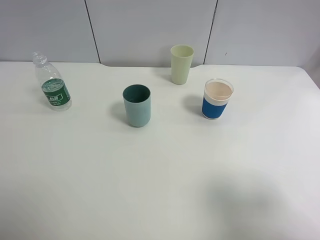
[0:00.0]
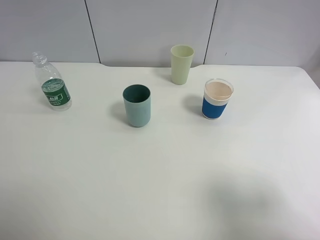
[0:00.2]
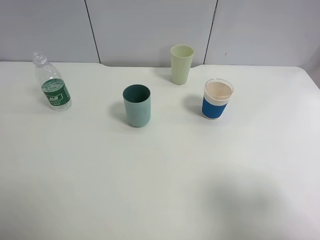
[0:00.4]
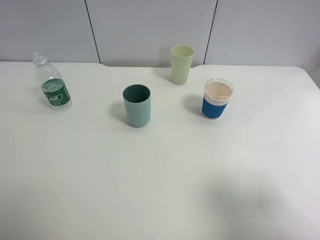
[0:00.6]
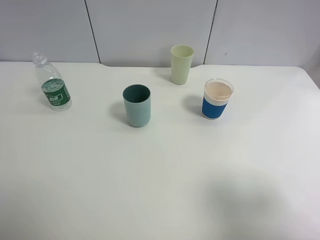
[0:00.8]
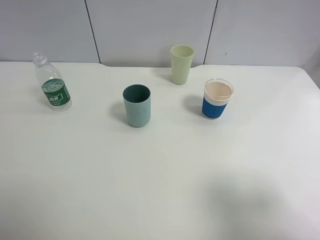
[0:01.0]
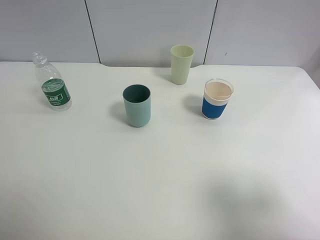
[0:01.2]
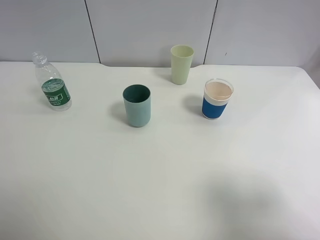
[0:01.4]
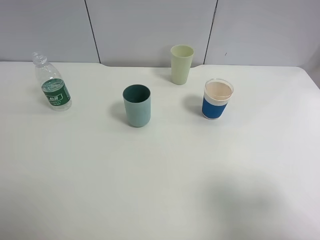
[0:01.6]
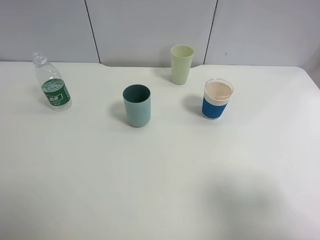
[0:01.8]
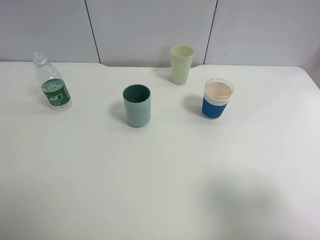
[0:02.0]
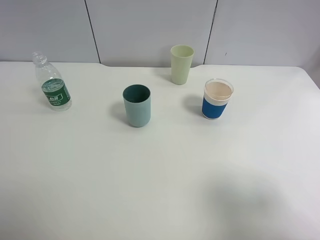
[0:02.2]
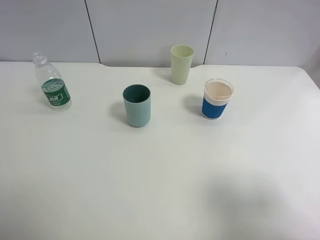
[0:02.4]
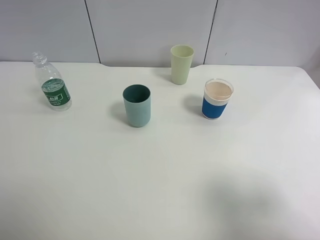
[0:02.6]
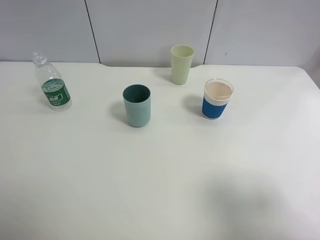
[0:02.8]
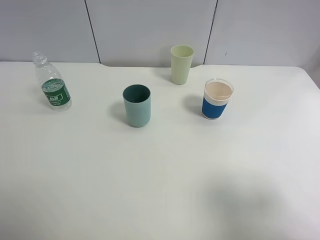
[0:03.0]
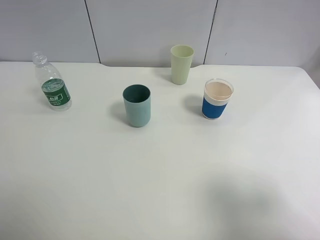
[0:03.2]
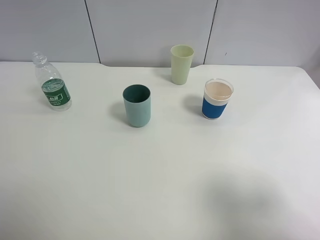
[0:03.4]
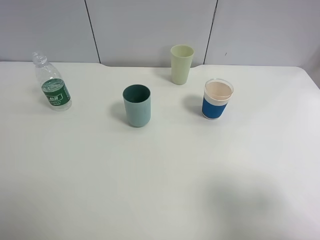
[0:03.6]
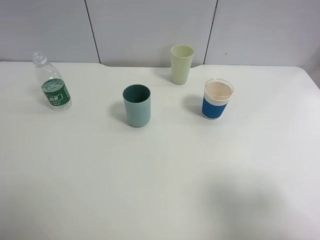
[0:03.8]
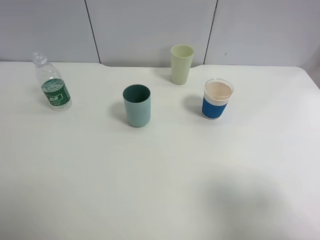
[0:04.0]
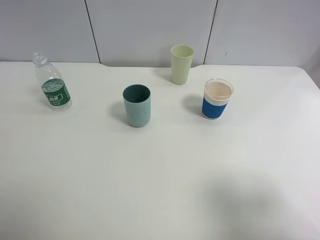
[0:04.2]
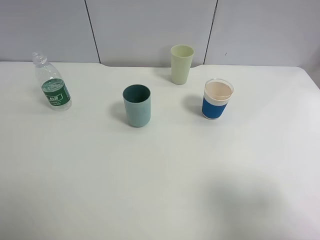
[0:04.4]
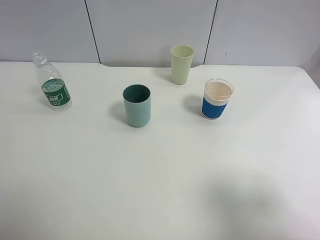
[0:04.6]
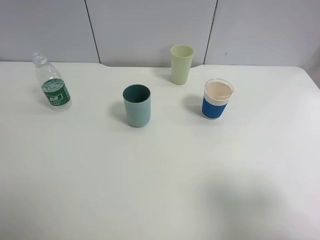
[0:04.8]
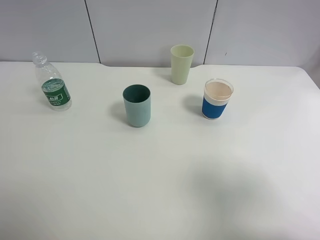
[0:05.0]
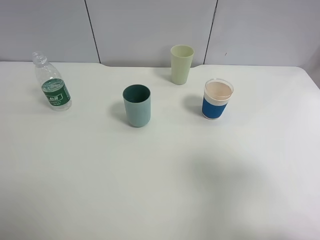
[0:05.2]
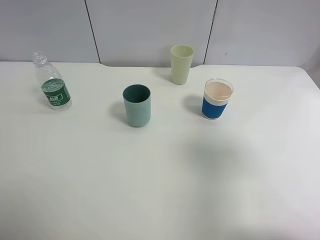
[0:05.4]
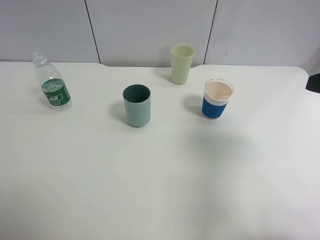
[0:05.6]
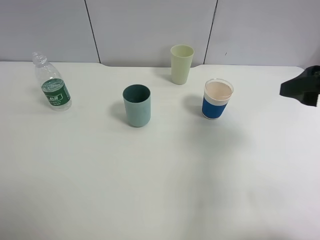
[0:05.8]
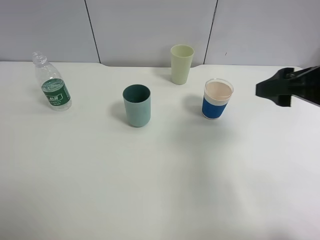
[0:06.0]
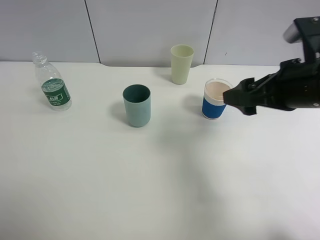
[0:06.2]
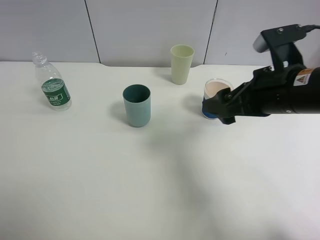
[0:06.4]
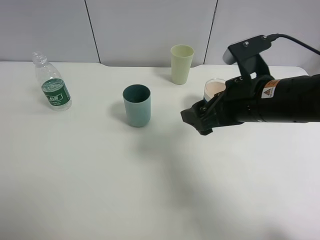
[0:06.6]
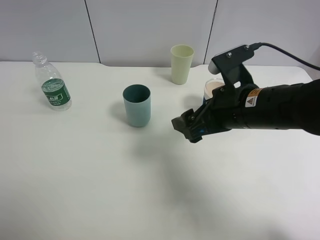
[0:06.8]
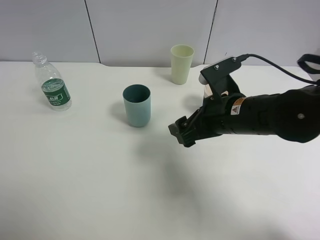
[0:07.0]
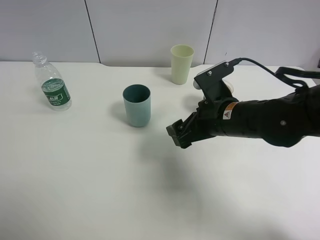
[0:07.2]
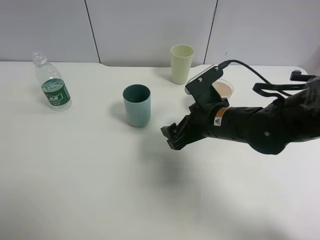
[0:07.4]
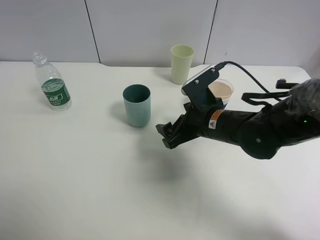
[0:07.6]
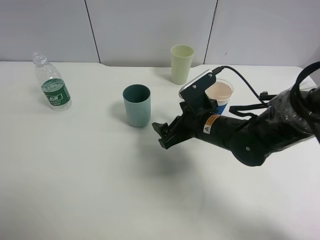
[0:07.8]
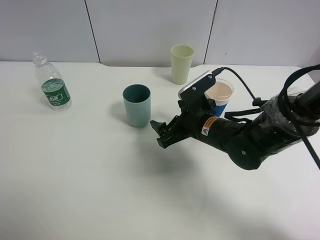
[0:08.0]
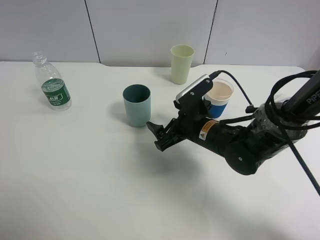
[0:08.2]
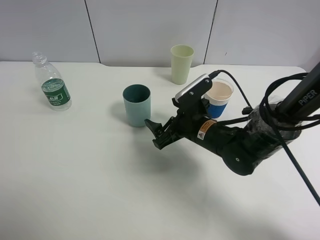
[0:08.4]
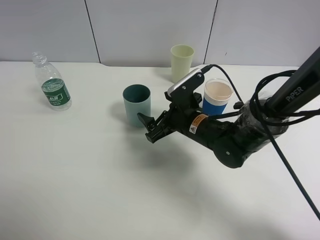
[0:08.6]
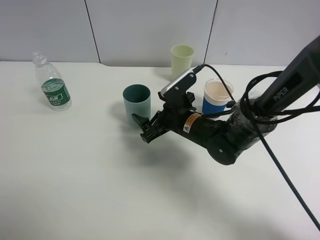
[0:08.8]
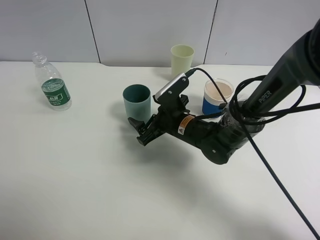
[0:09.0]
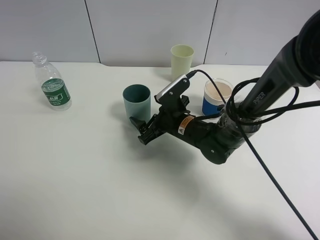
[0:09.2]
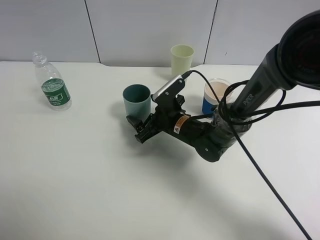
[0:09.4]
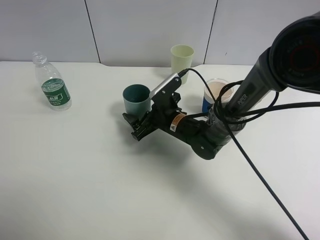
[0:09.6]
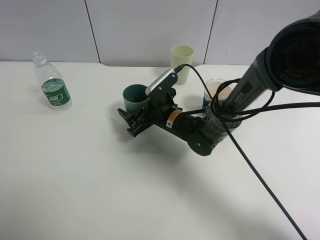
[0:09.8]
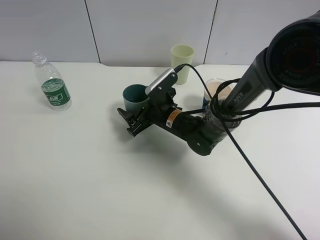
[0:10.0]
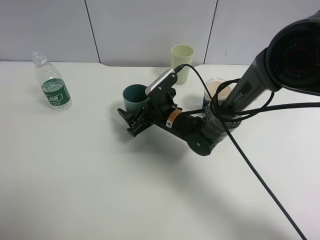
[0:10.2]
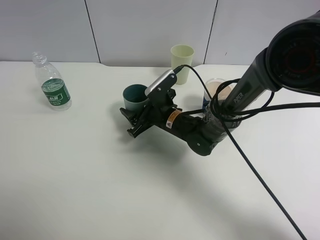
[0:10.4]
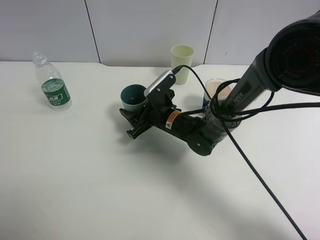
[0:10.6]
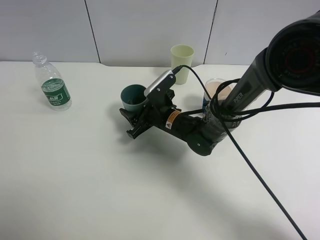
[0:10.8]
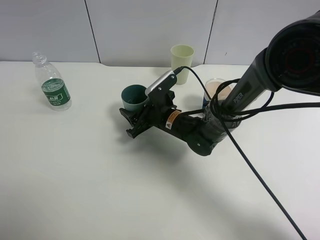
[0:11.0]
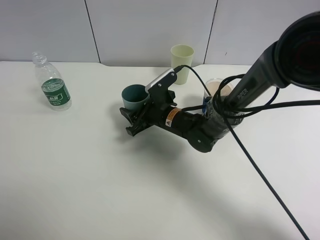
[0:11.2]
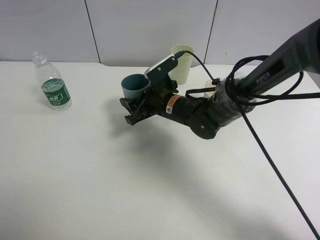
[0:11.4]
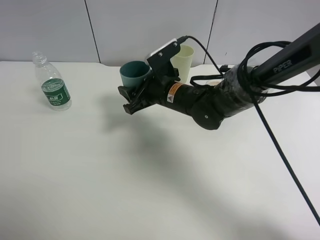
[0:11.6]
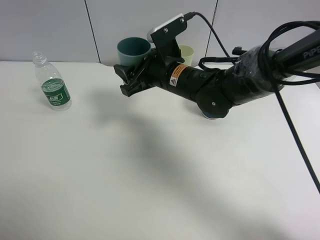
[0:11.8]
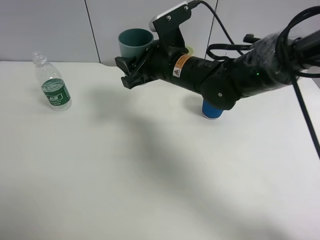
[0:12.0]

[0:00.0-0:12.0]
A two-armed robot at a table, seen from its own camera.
Task of the whole recording: use a clamp to hold the bottle of the drink, pour the beverage into a random cup, then clamp the cup containing the drink and pour the drink into another random cup.
Step, 0:00.0 to 0:11.2: Pick up the blue plastic cup bottle with right gripper.
0:01.6 to 0:04.4: Both grippers stay about where they are.
0:04.4 to 0:06.0: The right gripper moves forward, about 20 cm.
0:06.0 to 0:07.6: The right gripper heads to the left and downward, covering about 20 cm.
0:07.6 to 0:09.0: The right gripper travels downward by approximately 5 cm.
0:09.0 to 0:10.4: The right gripper closes.
0:10.4 to 0:12.0: The right gripper moves upward, approximately 15 cm.

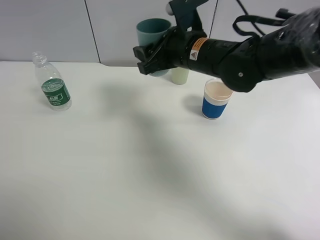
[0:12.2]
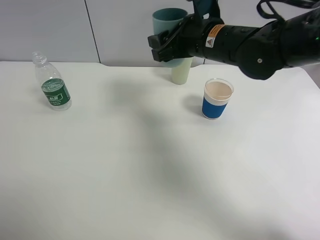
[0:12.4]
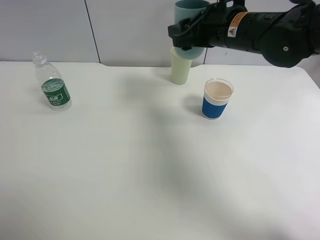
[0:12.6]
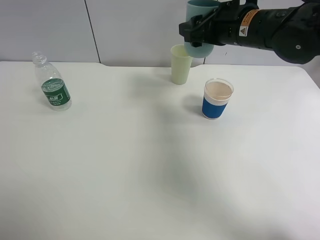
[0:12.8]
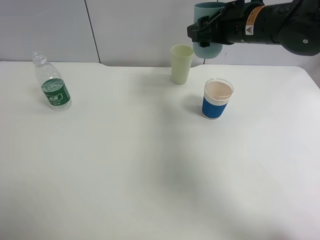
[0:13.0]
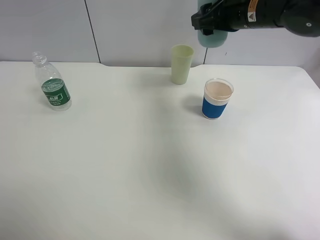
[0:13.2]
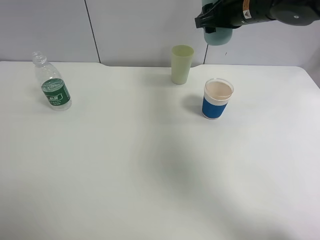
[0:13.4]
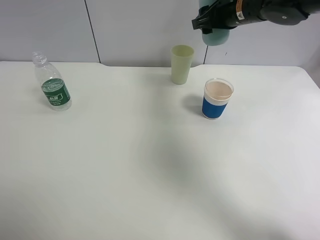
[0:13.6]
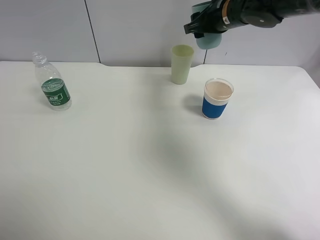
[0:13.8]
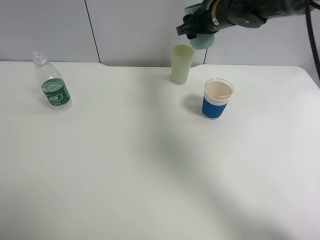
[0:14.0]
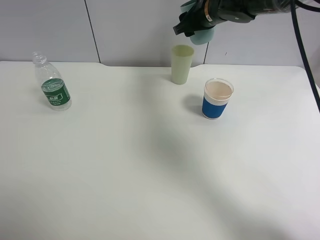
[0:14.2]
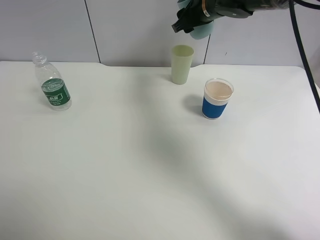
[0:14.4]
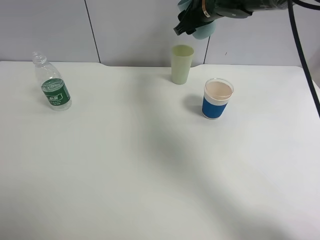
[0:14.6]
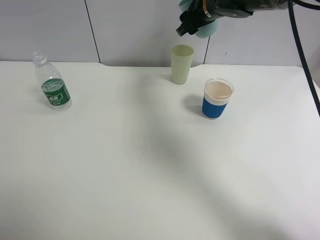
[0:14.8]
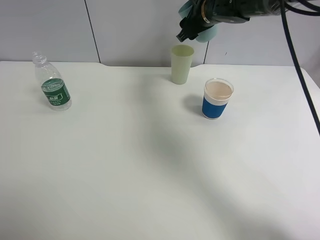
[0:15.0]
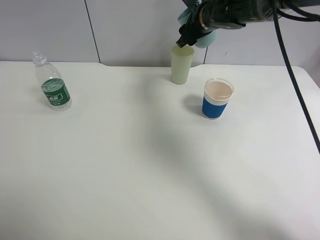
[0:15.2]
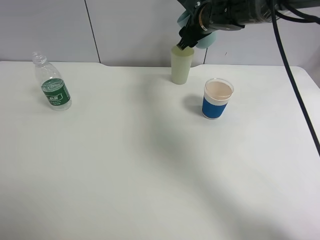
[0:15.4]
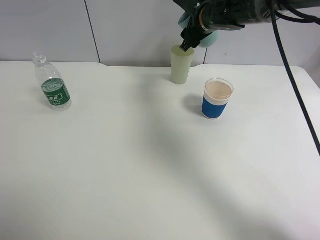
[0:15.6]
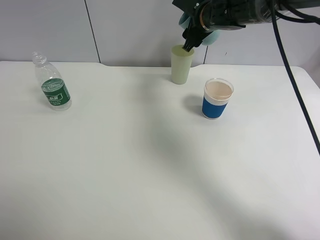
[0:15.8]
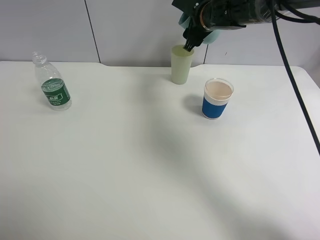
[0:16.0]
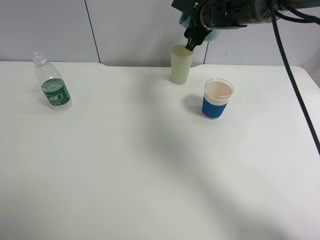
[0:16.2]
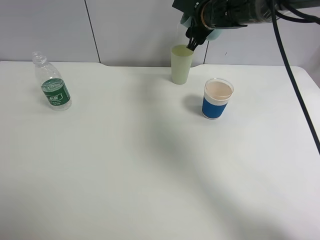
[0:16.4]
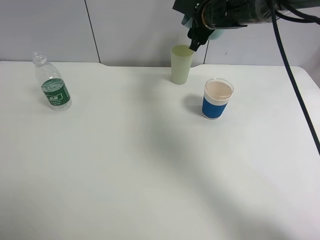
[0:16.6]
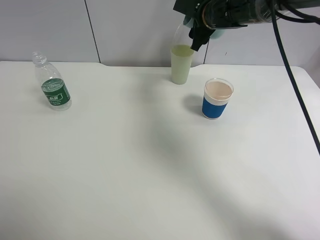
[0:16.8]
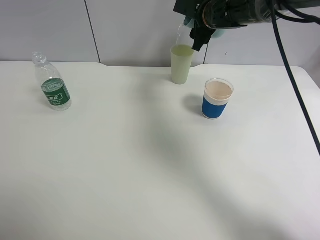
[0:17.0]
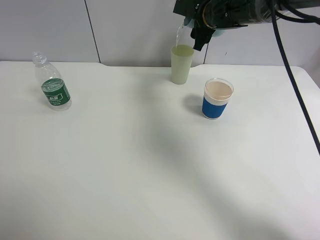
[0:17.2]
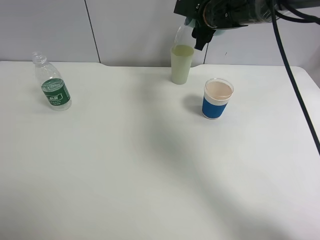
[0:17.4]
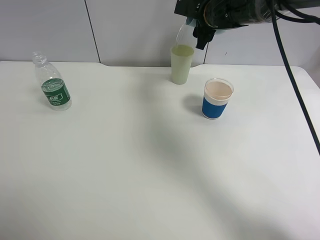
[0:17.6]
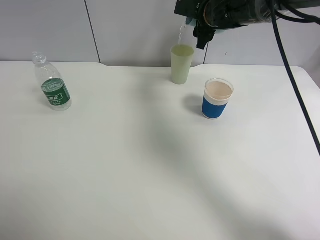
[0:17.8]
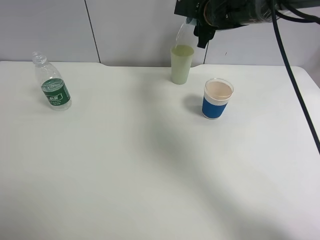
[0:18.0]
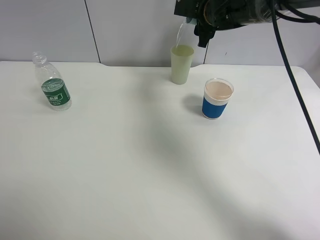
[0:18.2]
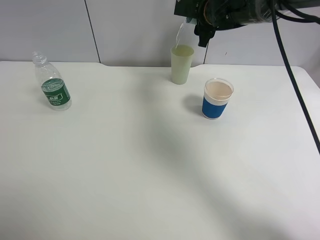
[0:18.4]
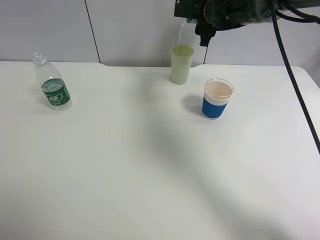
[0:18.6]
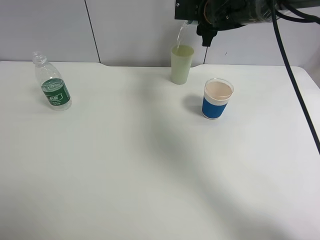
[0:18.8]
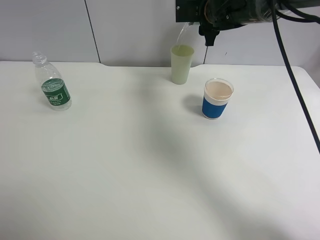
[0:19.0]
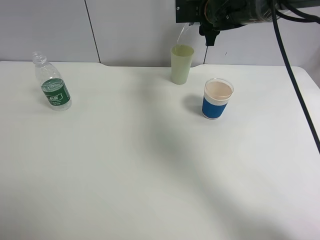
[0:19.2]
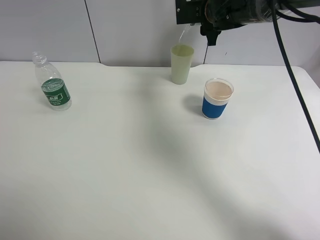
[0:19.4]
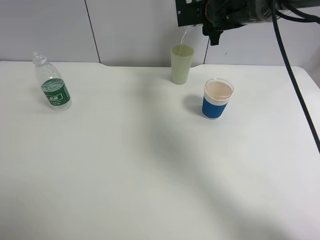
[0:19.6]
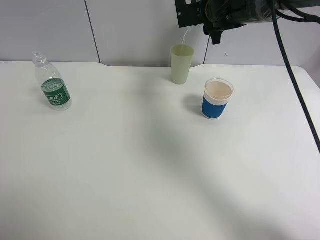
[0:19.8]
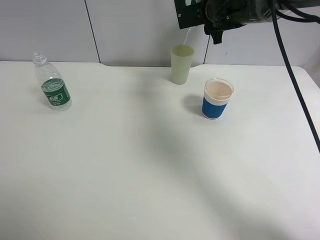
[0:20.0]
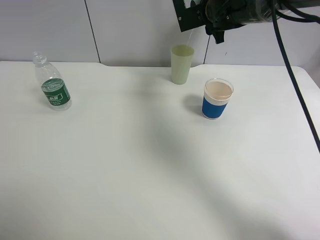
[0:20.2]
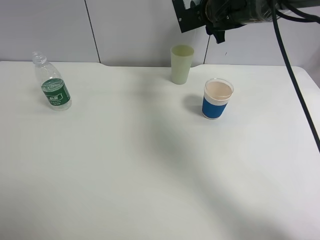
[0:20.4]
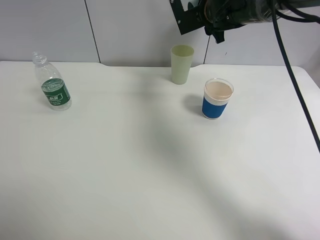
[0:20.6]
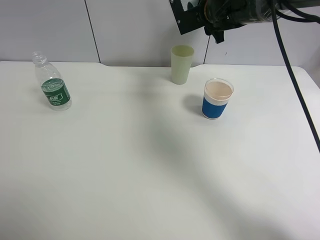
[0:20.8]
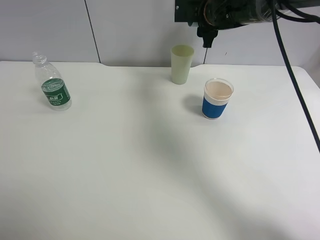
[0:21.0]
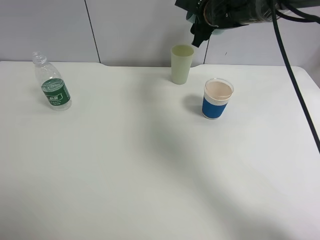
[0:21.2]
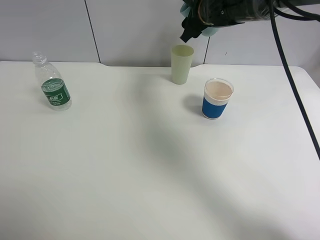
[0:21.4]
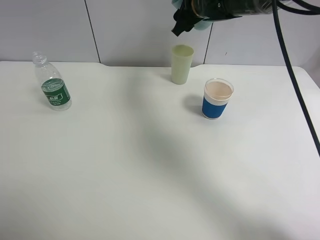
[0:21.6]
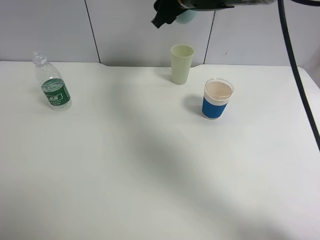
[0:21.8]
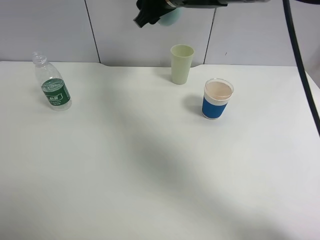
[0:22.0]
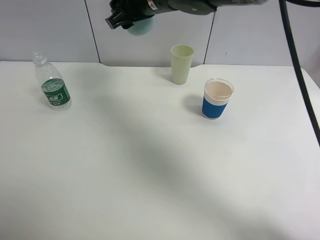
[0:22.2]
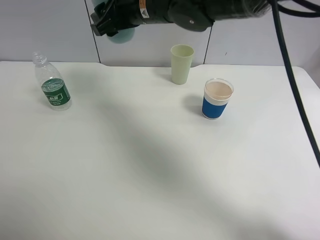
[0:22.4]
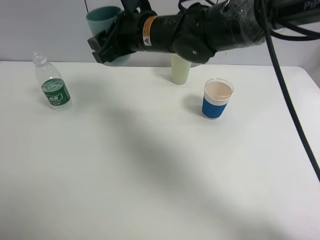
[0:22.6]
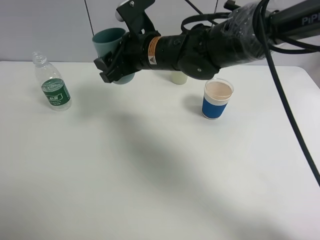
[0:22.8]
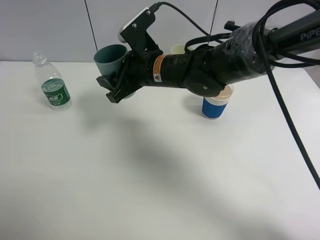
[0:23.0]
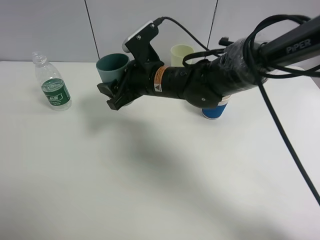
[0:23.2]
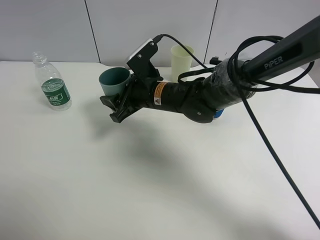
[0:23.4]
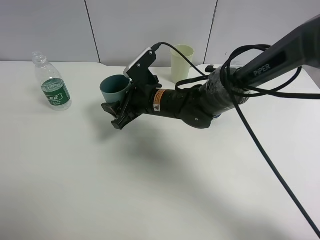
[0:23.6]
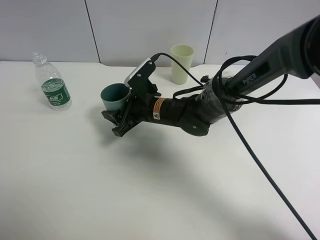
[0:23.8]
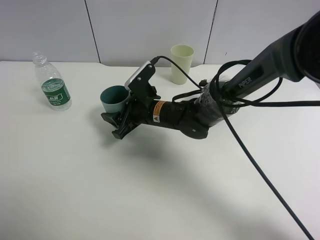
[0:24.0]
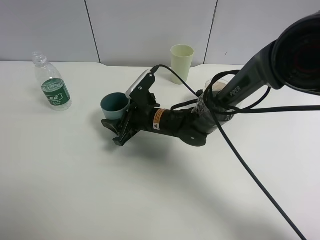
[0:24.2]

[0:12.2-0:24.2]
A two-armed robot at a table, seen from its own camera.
Task of the whole recording: use a clamp to hold the bottle of the drink, pour the beverage into a random cup, then clamp the cup containing the drink and pour the drink into another random cup.
Step, 0:12.2 to 0:20.8: Pour water into the green plastic cup with right gripper.
0:12.2 to 0:13.8: The right gripper is displaced forward and to the right by roughly 15 cm.
0:21.2 to 0:22.6: The right gripper is displaced to the left and backward by some 20 cm.
0:22.6 to 0:24.2: The right gripper heads downward, covering roughly 15 cm.
